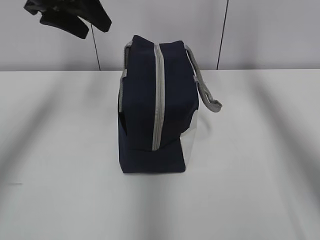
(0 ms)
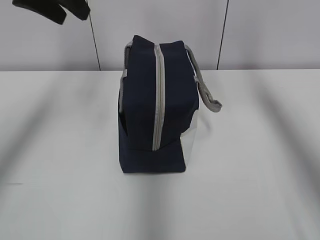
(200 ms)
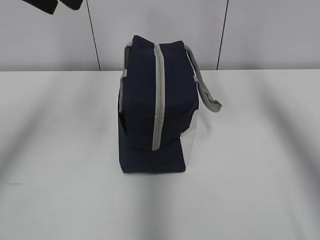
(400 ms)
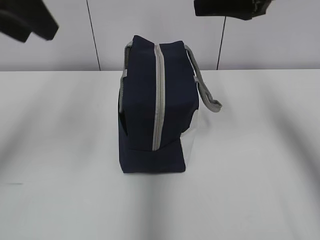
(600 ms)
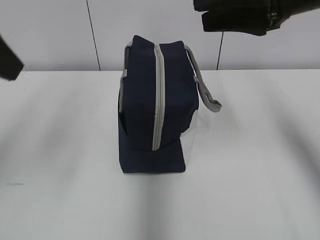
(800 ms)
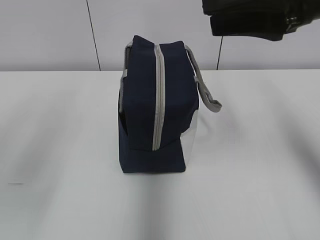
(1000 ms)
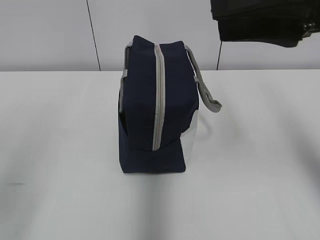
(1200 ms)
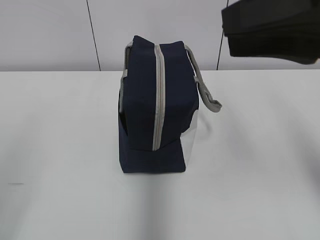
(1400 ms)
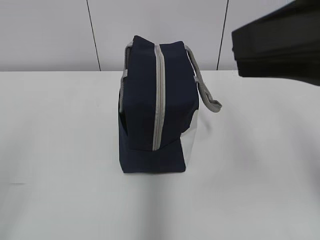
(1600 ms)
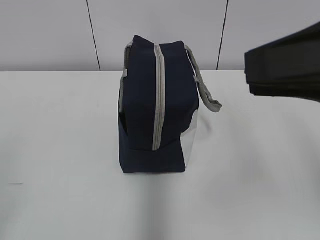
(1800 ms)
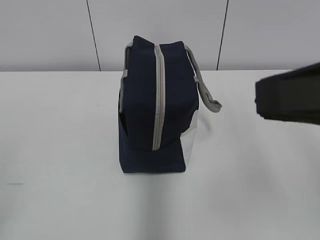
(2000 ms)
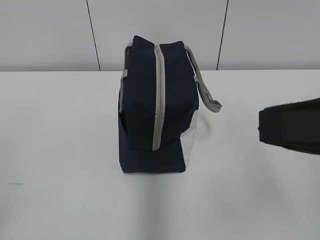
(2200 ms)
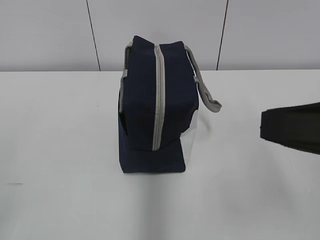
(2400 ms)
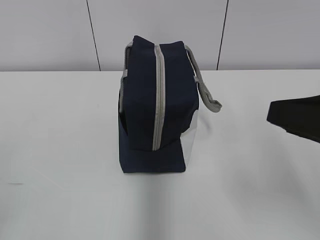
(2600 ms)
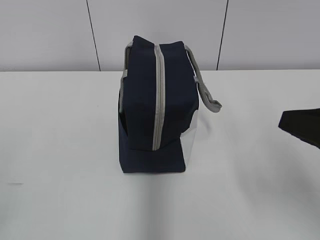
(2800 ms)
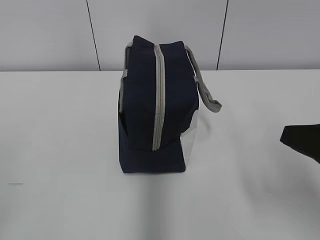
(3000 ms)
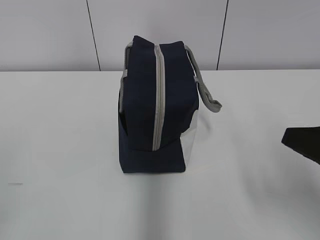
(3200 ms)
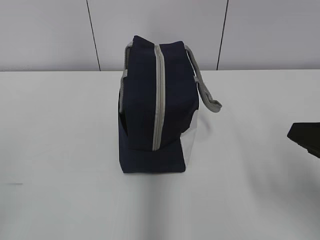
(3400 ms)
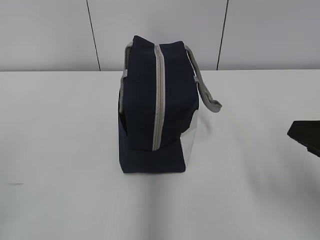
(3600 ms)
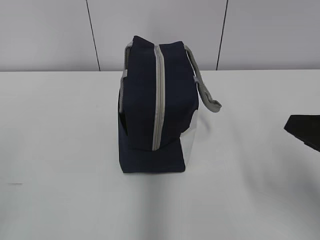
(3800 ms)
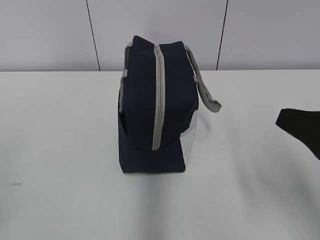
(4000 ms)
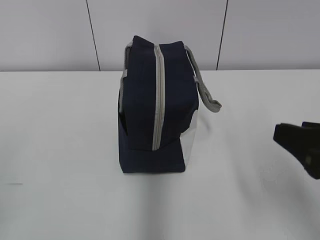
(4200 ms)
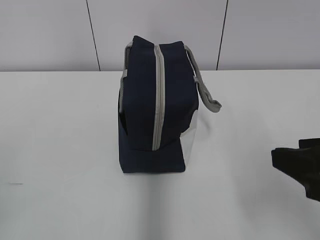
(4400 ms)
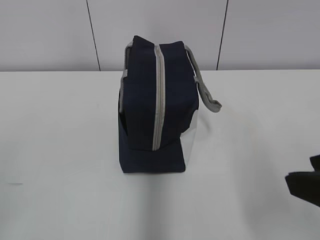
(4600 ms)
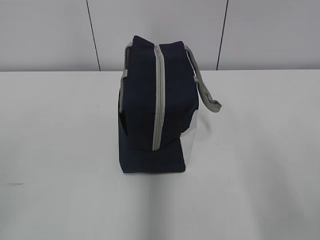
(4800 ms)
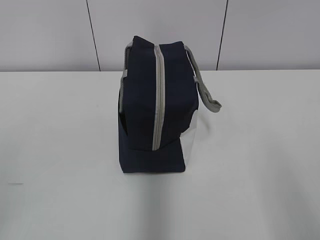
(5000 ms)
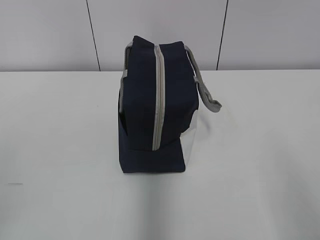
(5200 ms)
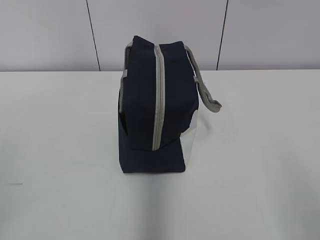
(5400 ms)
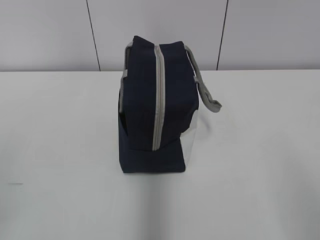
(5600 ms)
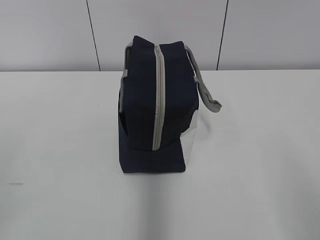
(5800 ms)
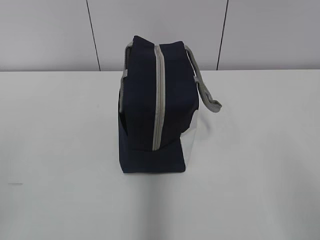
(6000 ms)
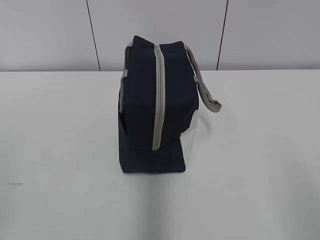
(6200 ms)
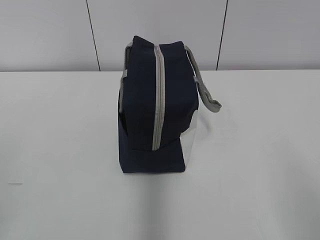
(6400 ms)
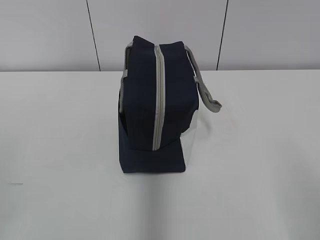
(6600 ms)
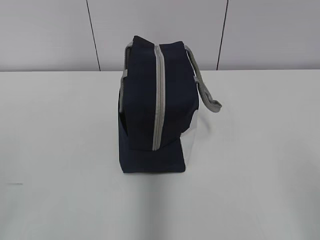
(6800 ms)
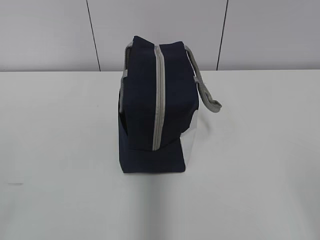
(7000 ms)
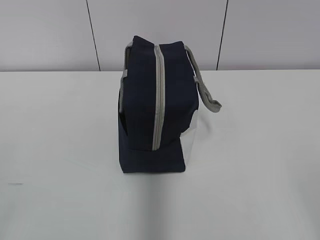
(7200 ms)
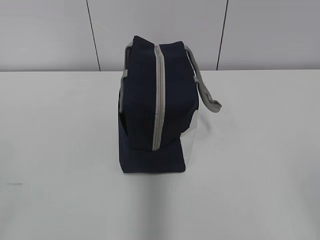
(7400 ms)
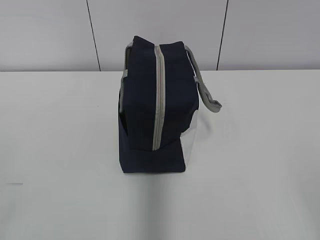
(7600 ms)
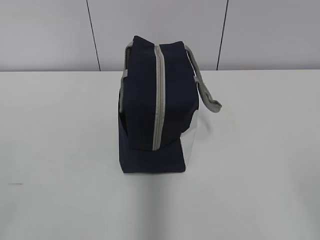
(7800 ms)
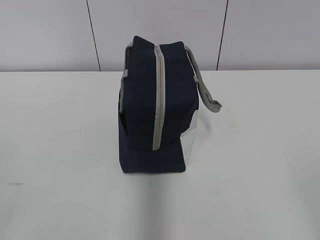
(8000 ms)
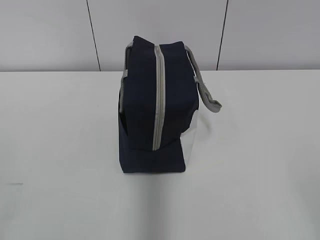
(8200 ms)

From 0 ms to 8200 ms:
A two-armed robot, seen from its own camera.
From 0 ms to 1600 ms: The grippers both shift backward by about 30 cm.
From 1600 ms to 3200 ms: The right gripper heads downward and to the right, covering approximately 15 cm.
From 3200 ms to 5000 ms: The right gripper goes some 10 cm backward.
